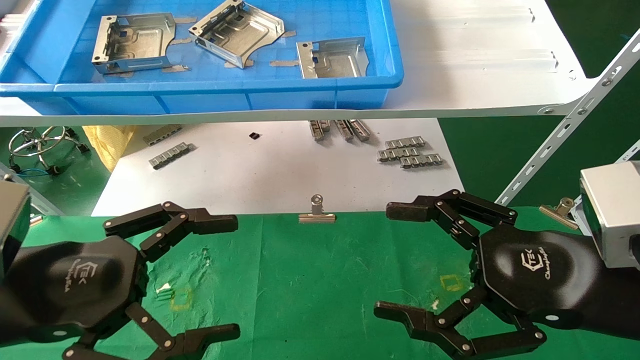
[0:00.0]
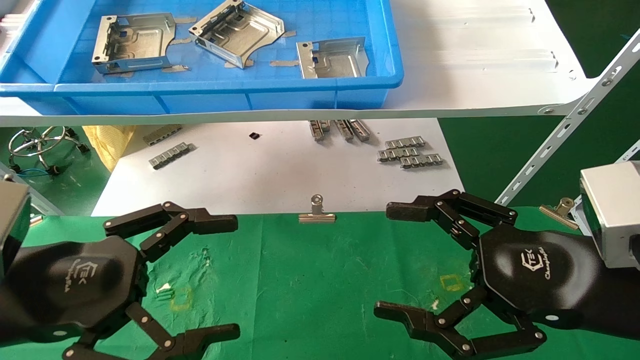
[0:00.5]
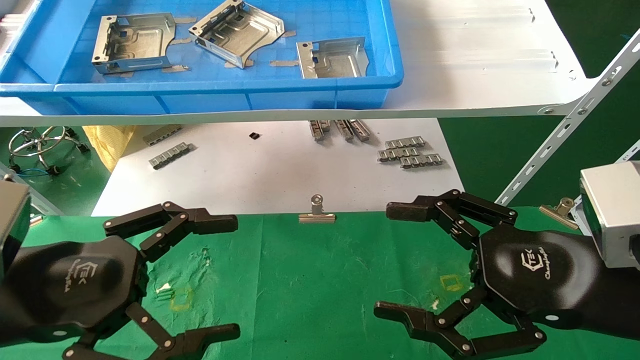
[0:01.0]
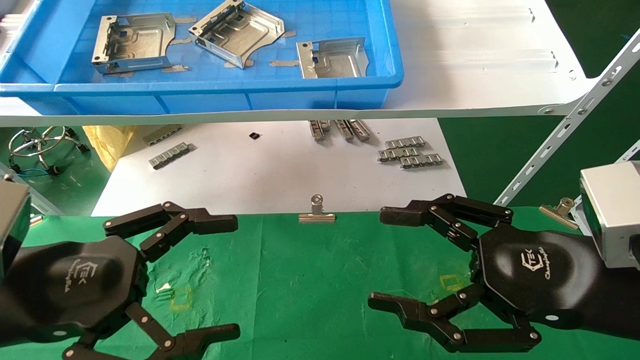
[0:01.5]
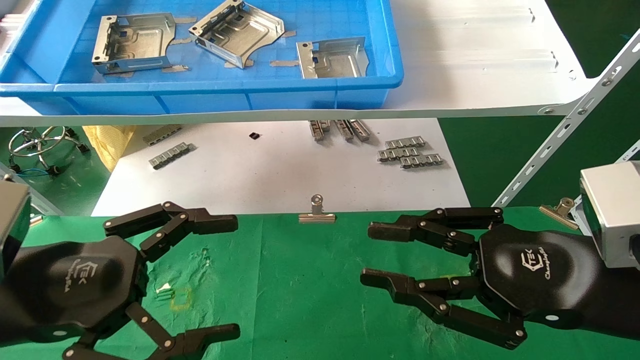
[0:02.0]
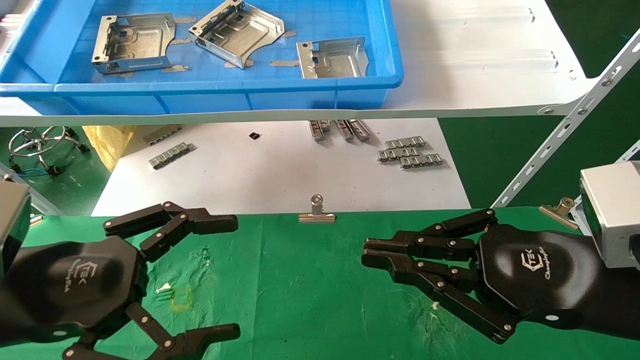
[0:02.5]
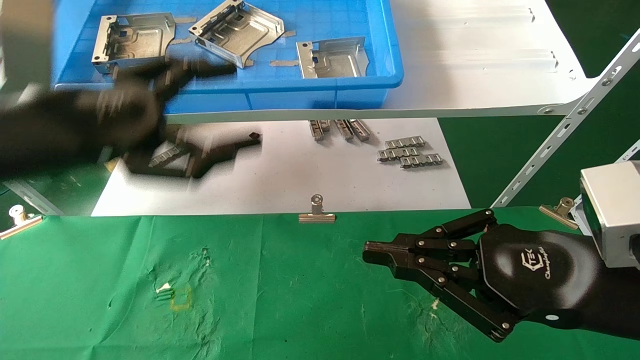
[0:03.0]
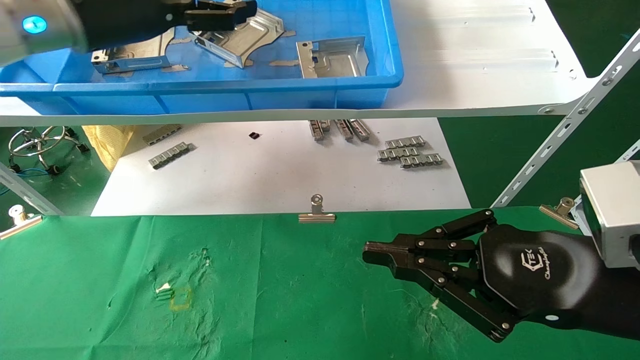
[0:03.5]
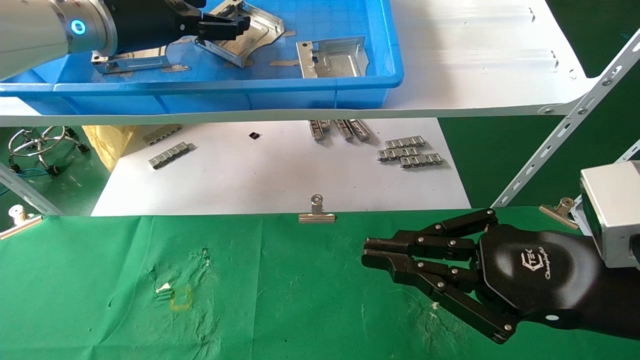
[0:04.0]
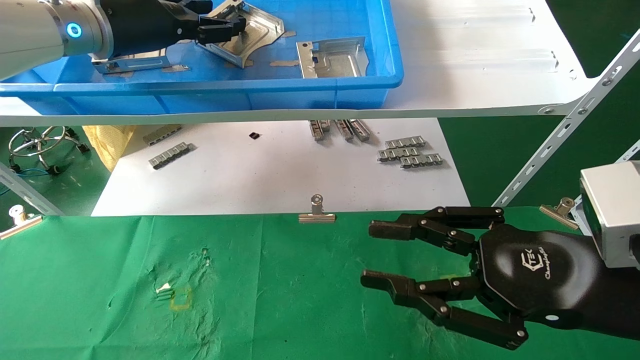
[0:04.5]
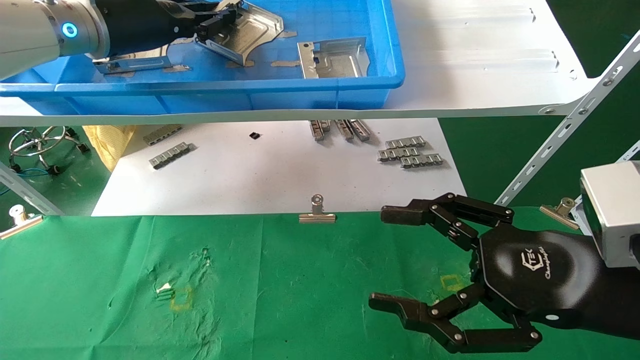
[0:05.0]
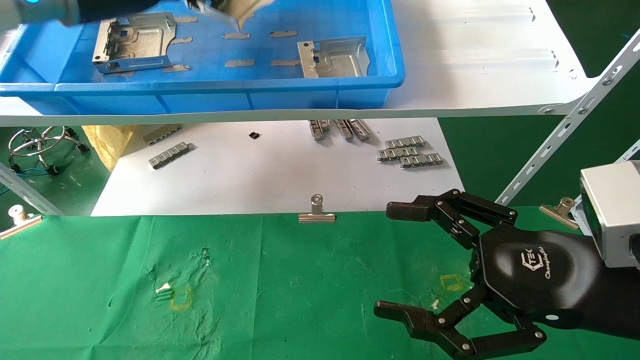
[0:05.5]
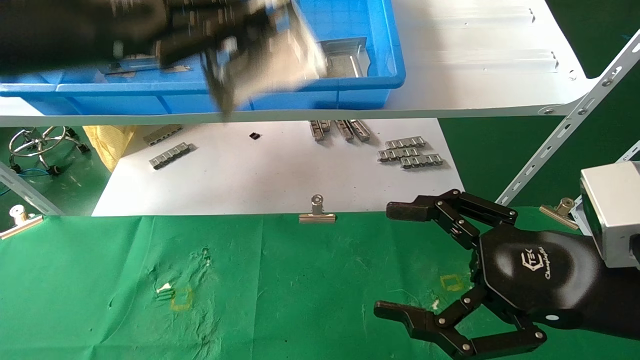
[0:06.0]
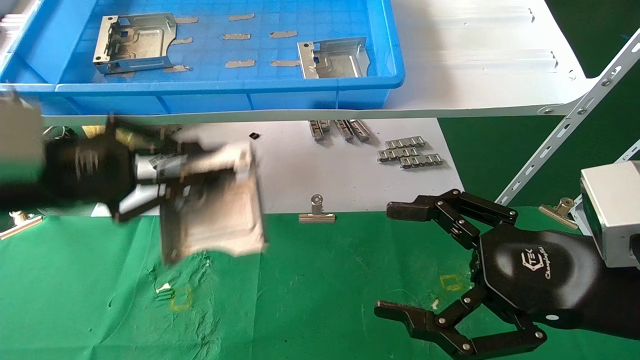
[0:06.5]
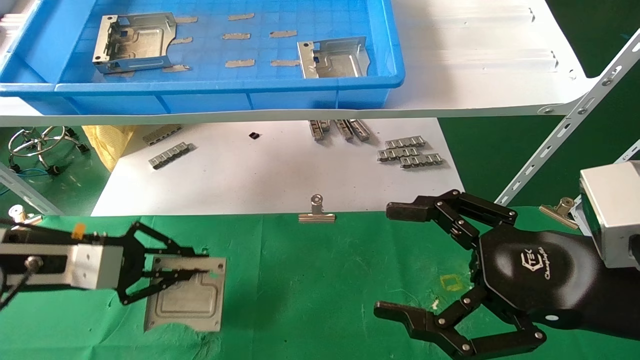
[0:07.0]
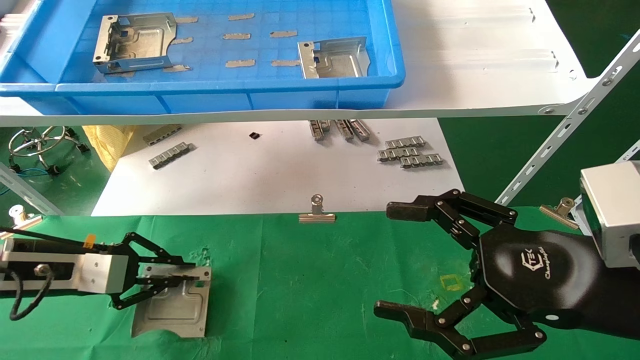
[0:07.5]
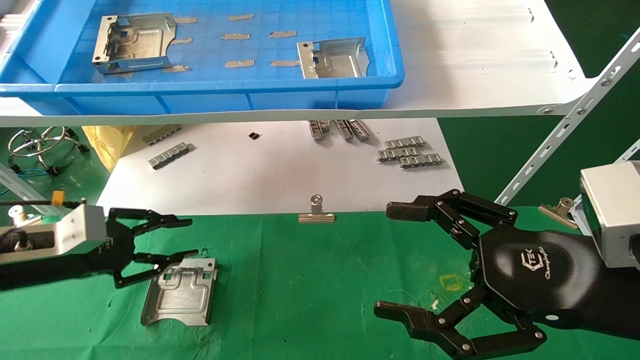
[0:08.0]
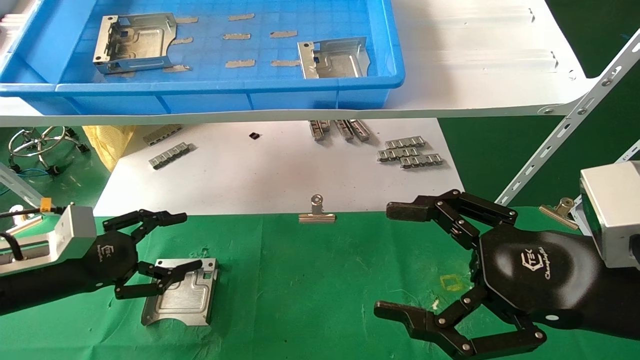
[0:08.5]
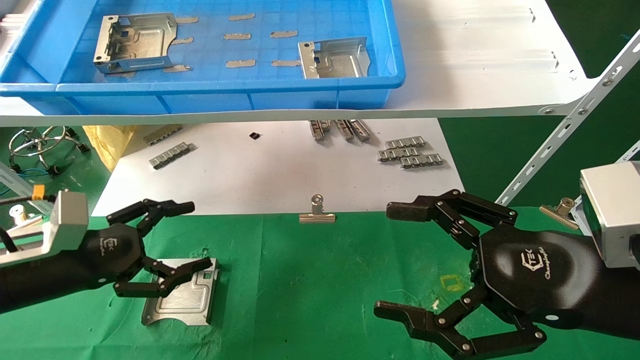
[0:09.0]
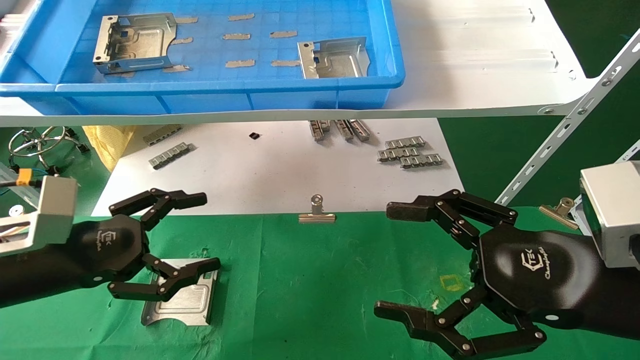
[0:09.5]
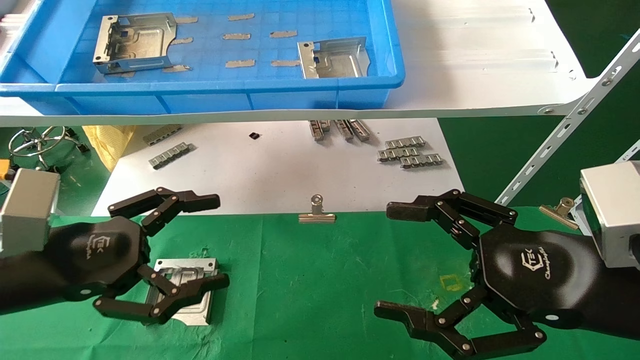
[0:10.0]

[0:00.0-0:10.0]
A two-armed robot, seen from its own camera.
Task of the whole recording: use the mechanical arm to pick up the parts and place them on the table.
Step, 0:03.0 to 0:05.0: Pick up the hard drive bracket from the feeding area.
Step, 0:05.5 to 0:07.5: Place the hard drive bracket into the box.
0:00.0 to 0:02.0: The right gripper closes.
0:02.0 to 0:04.0: The left gripper moves forward and upward, approximately 30 cm, while the right gripper closes up.
0:04.0 to 0:06.0: The right gripper opens; the left gripper heads backward, covering about 10 cm, and closes.
0:06.0 to 0:08.0: The left gripper heads downward, covering approximately 25 cm.
0:08.0 to 0:10.0: The left gripper is displaced backward, to the right and upward by approximately 15 cm, and opens up.

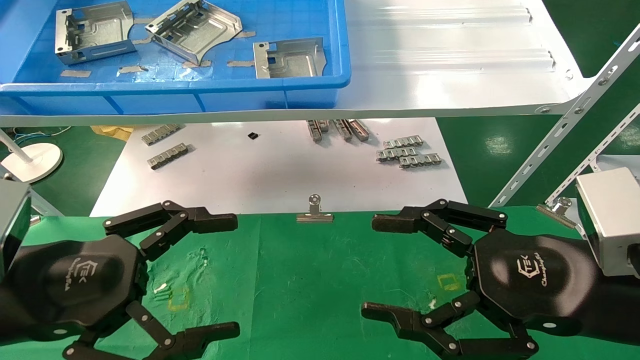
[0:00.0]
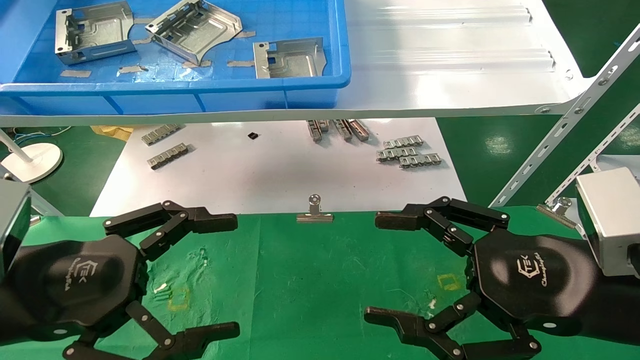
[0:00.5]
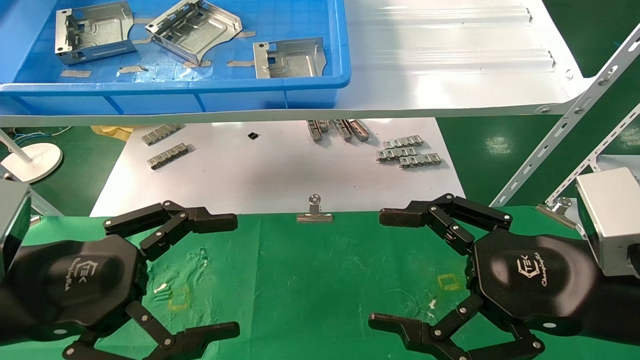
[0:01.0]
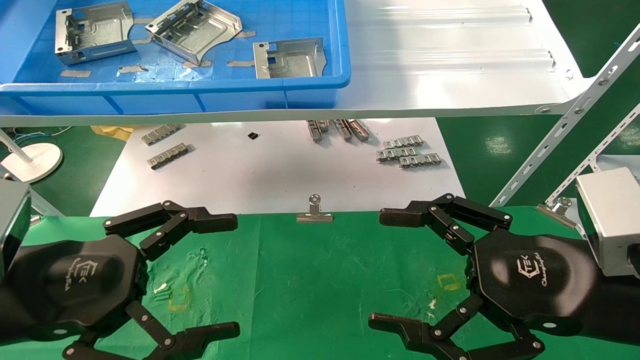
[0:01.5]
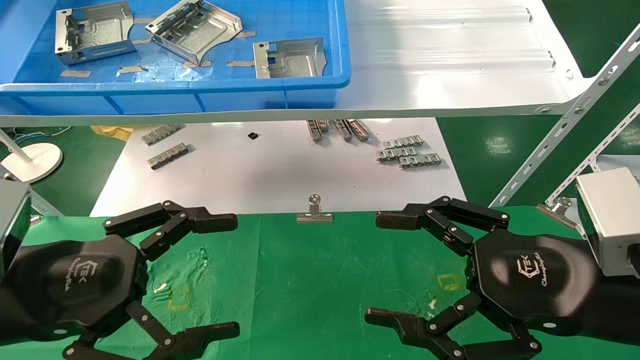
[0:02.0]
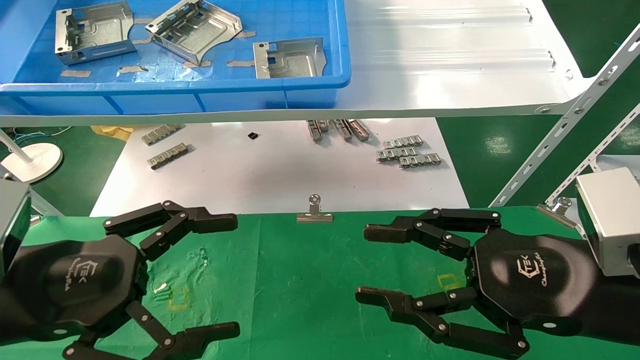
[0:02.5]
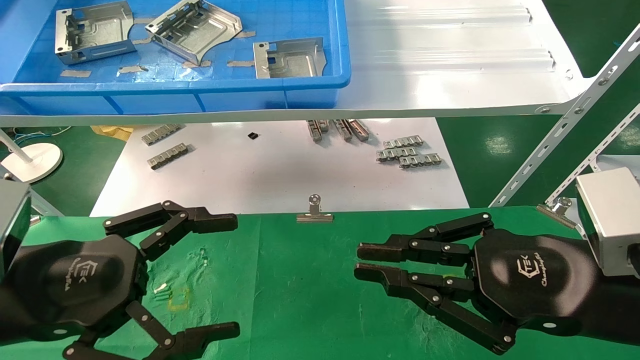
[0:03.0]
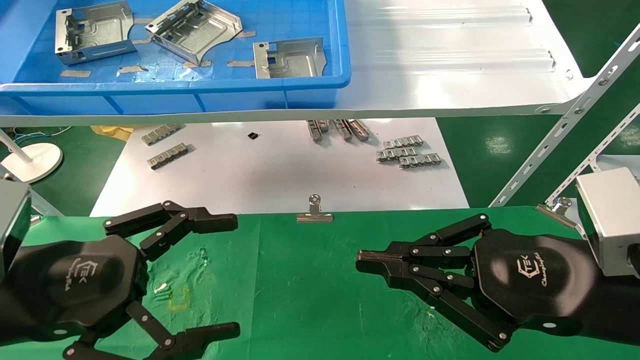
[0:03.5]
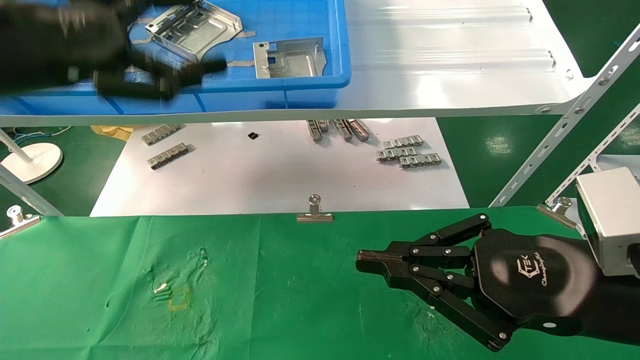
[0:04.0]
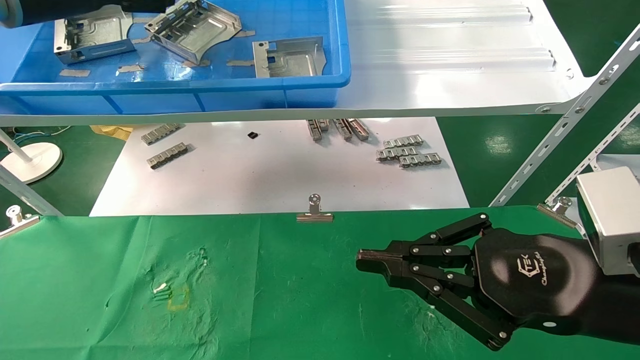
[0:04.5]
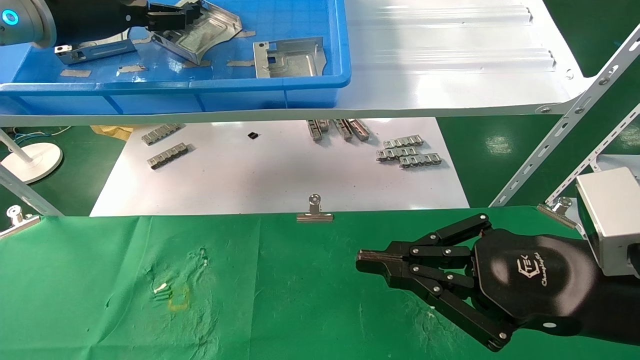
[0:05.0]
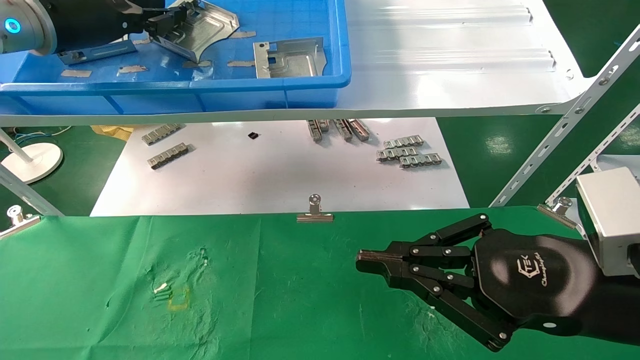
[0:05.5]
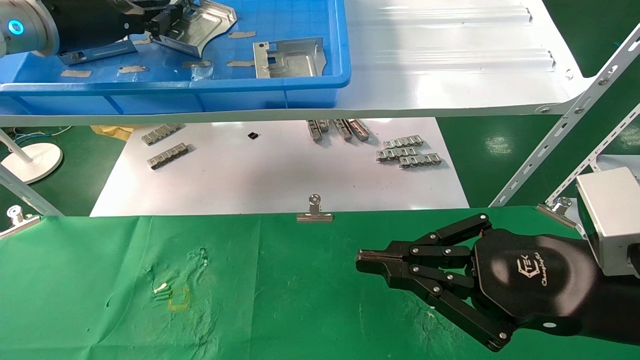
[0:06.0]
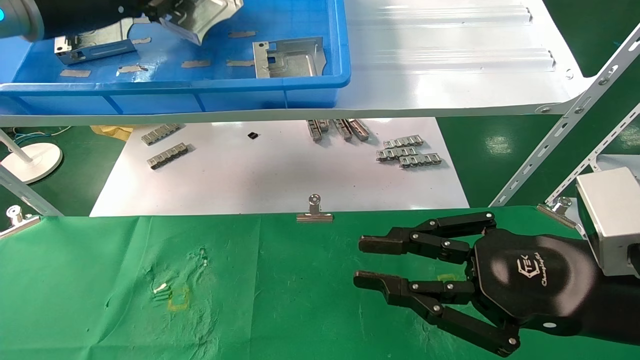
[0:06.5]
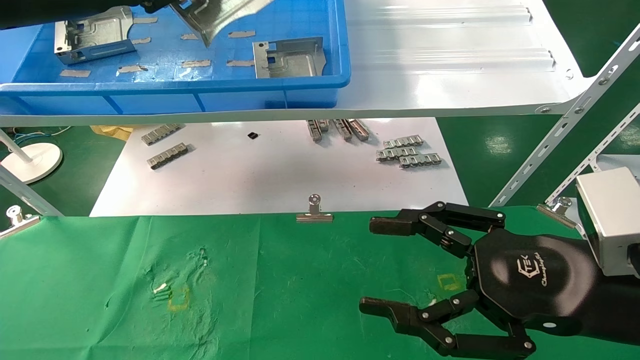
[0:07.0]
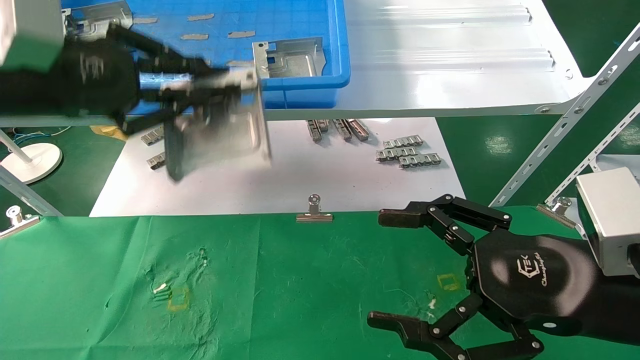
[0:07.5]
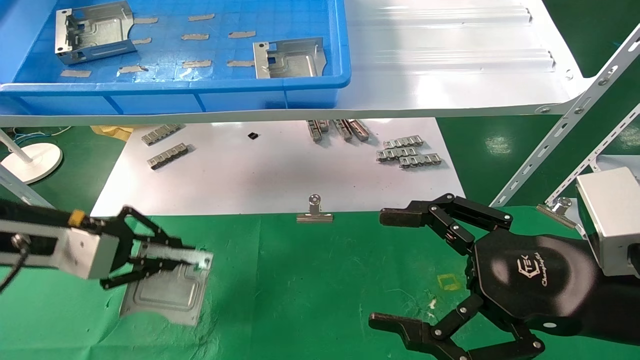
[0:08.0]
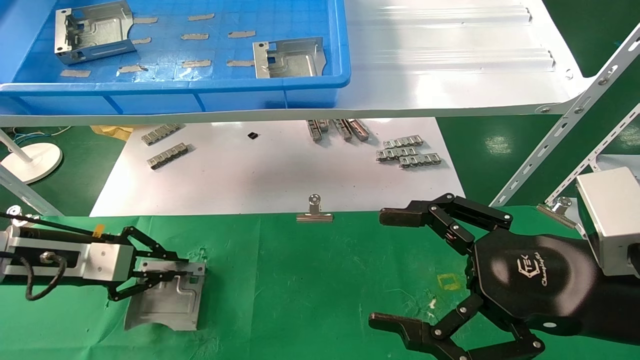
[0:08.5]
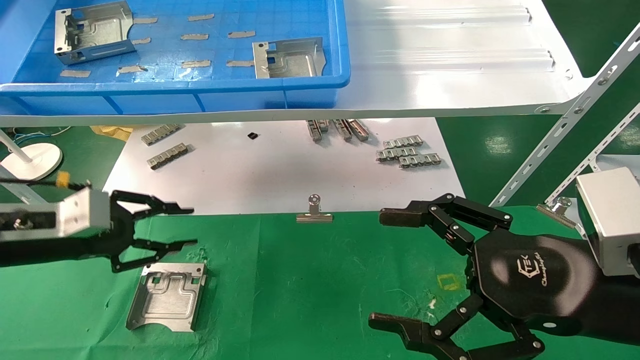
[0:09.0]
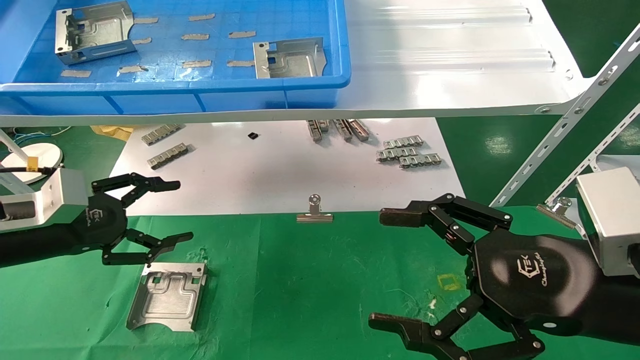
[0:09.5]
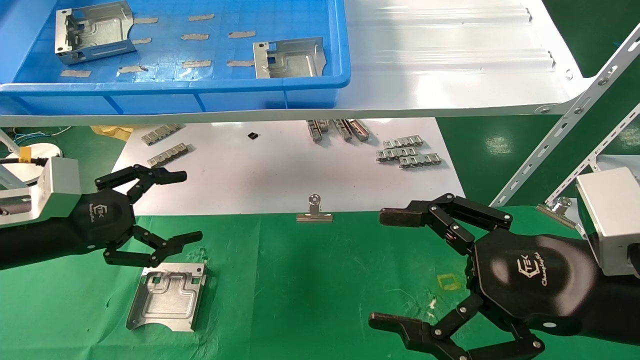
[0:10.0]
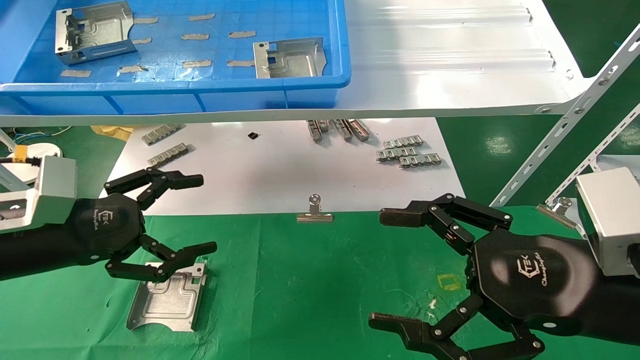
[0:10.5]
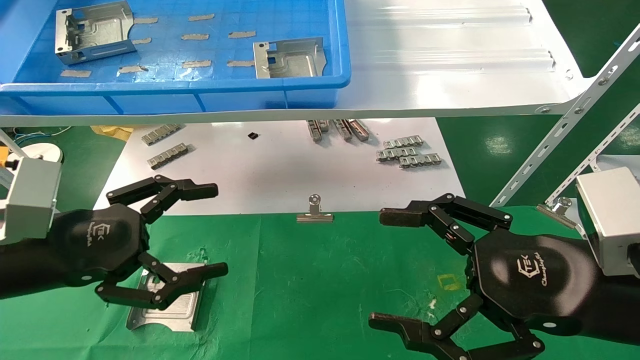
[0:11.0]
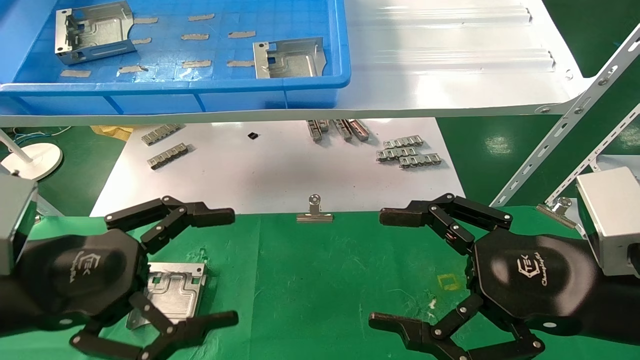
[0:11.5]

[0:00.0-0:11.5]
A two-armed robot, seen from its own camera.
Task of the whole recording: use the mechanical arm to pick up the parts and place them on the table.
Step, 0:04.0 to 0:06.0: Pick up the hard drive bracket from the feeding area.
Step, 0:06.5 to 0:09.0: Place the hard drive bracket into the box.
0:00.0 to 0:02.0: Both grippers stay put.
0:02.0 to 0:04.0: The left gripper shifts roughly 20 cm upward and forward. The right gripper closes its fingers.
0:04.0 to 0:06.0: The left gripper is displaced forward by some 15 cm, and closes up.
0:06.0 to 0:07.5: The right gripper opens its fingers, while the left gripper goes approximately 15 cm backward and downward.
0:07.5 to 0:09.5: The left gripper is displaced downward by about 15 cm, and opens up.
0:09.5 to 0:11.5: The left gripper is displaced backward and to the right by roughly 15 cm.
